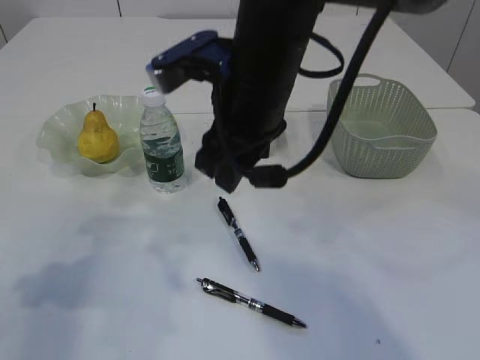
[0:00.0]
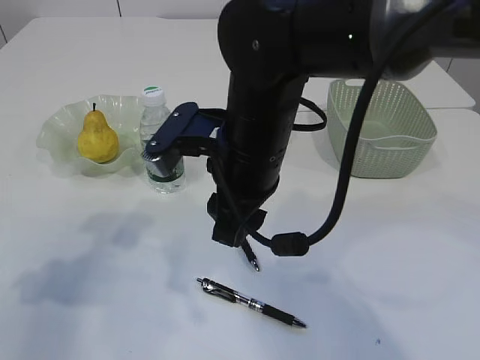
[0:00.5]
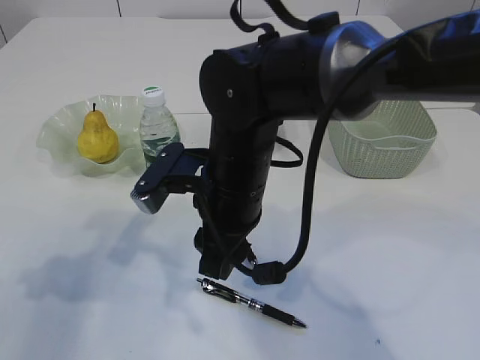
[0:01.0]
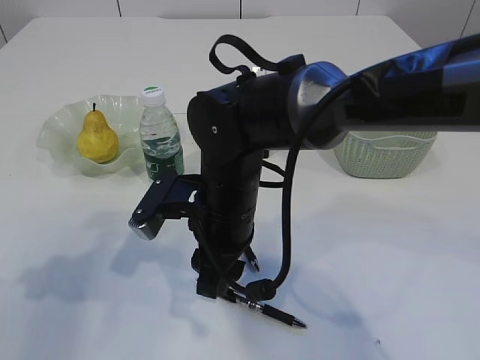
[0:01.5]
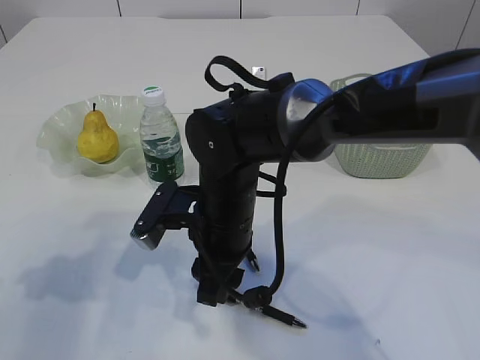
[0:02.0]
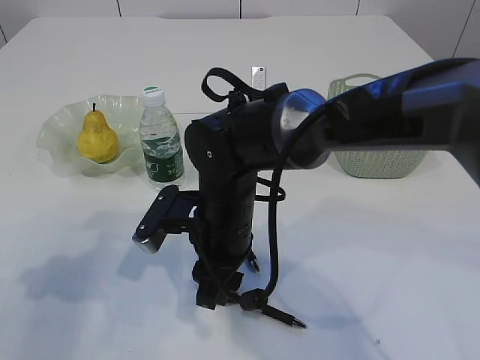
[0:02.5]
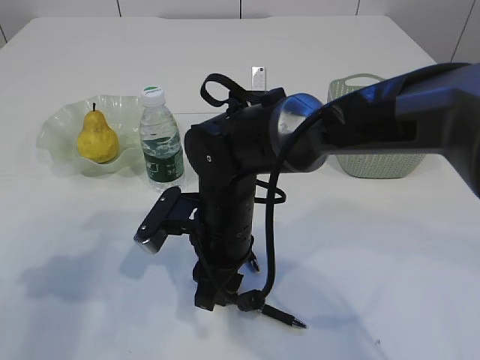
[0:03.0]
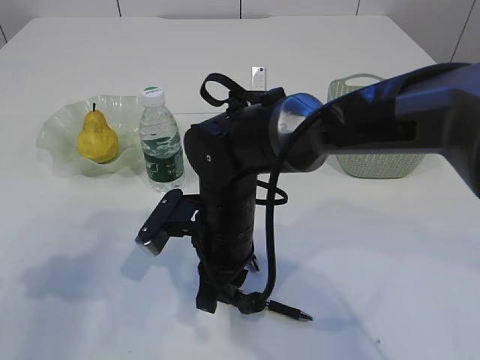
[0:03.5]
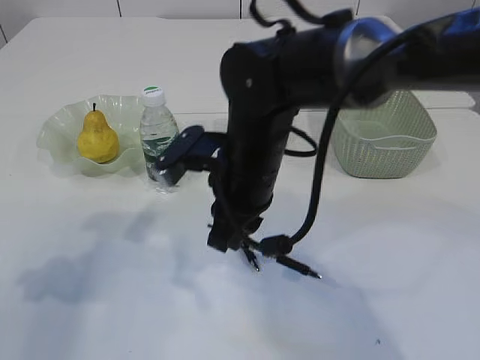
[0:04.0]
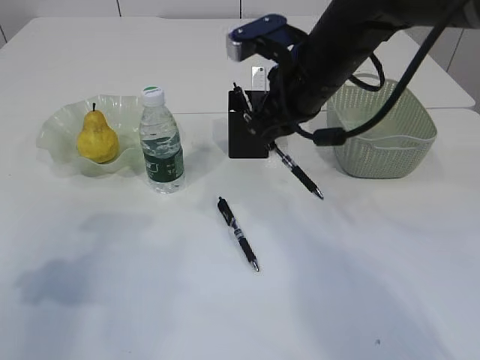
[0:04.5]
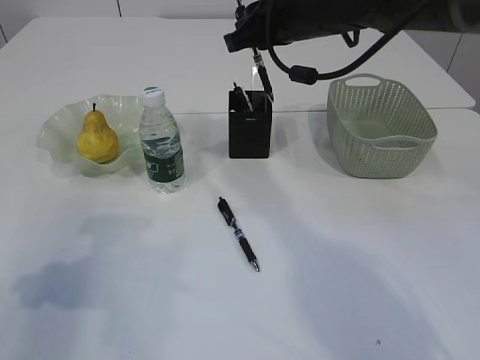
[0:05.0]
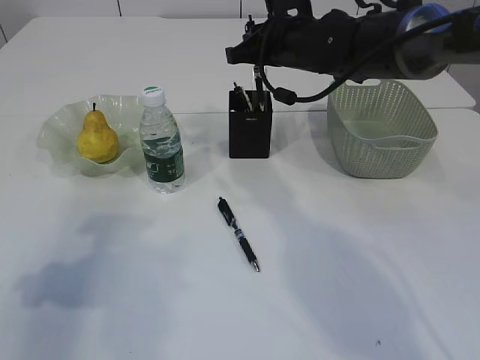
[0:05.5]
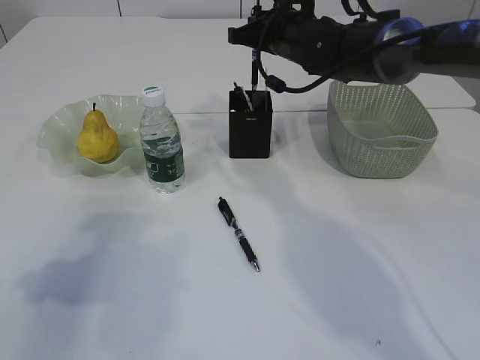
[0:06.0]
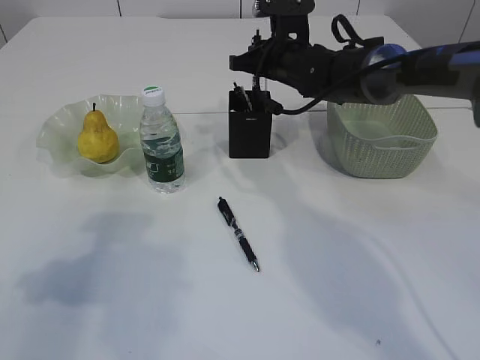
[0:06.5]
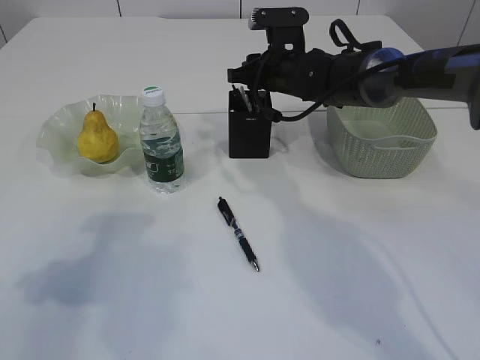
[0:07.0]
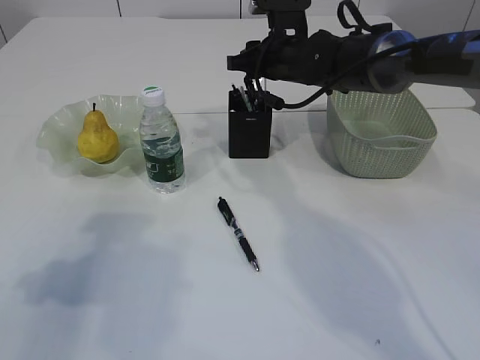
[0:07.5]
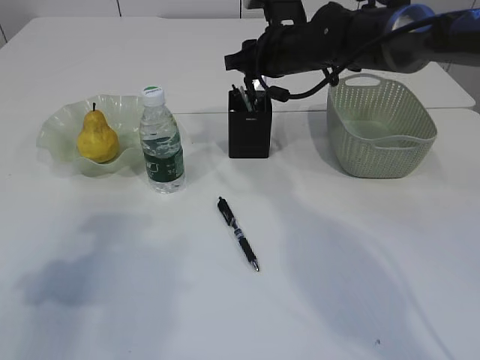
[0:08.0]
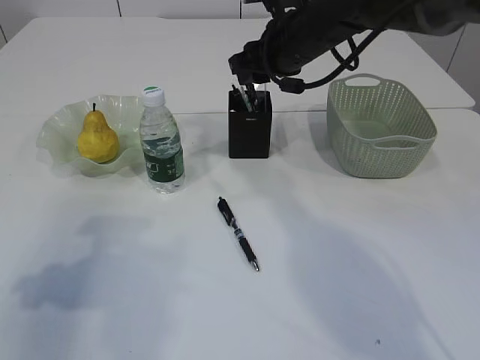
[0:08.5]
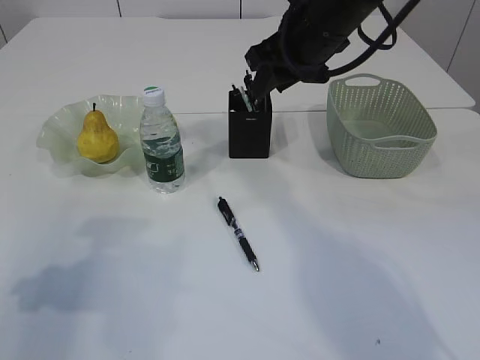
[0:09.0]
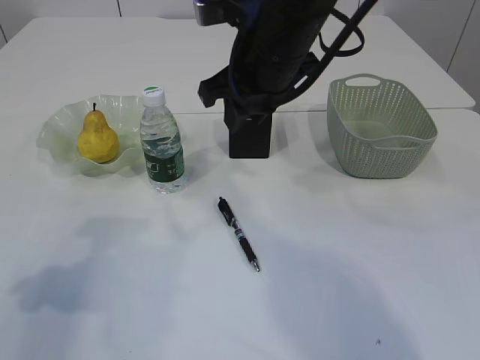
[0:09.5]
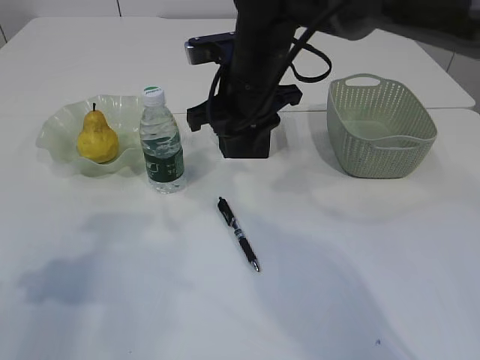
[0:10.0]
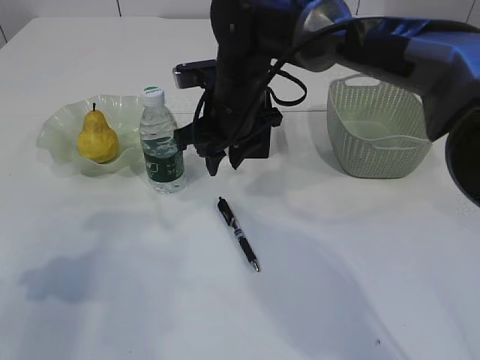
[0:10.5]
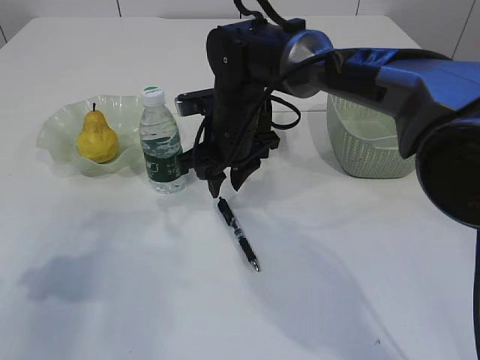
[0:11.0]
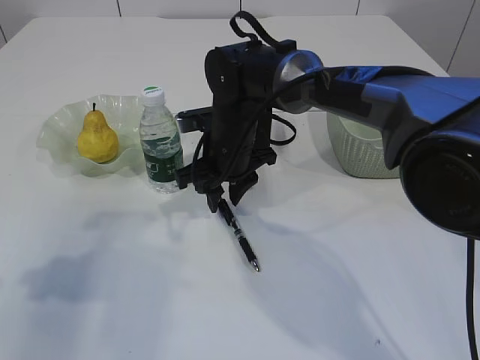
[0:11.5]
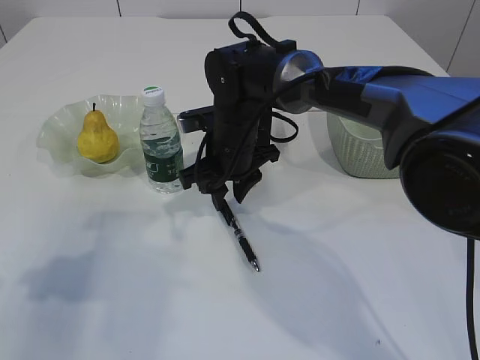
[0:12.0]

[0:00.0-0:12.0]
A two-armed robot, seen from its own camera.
Step, 0:00.0 to 0:04.0: Pick up the pen with right arm.
Step, 0:04.5 to 0:08.5: Place the pen into the pen holder.
0:00.0 to 0:02.0: The right gripper goes about 15 cm downward.
0:02.0 to 0:04.0: The right gripper shifts about 5 cm upward, and closes its fingers.
0:04.0 to 0:06.0: The right gripper goes some 20 cm forward and to the right.
0:06.0 to 0:08.0: The right gripper opens up.
0:08.0 to 0:10.0: The right gripper shifts some 10 cm backward and to the left.
0:10.0 to 0:12.0: The right gripper shifts about 10 cm downward.

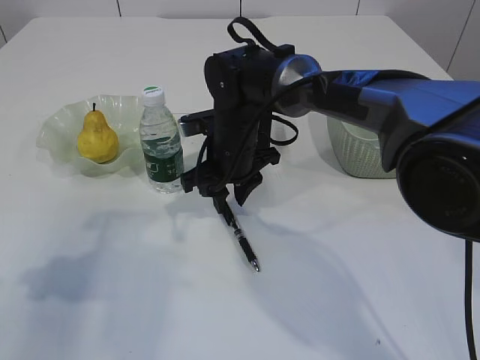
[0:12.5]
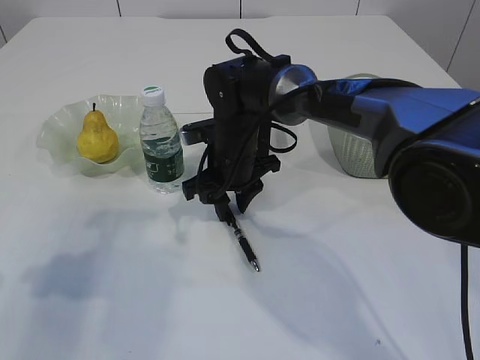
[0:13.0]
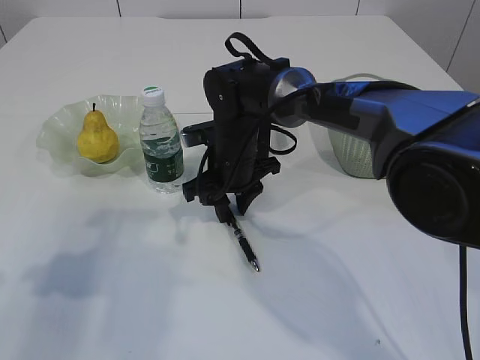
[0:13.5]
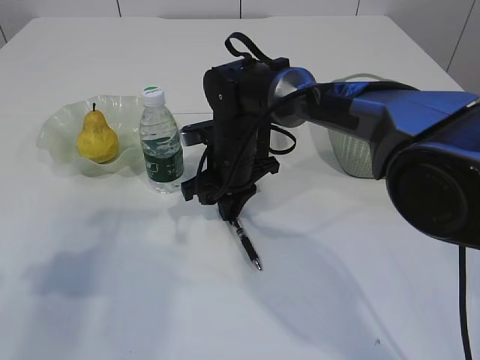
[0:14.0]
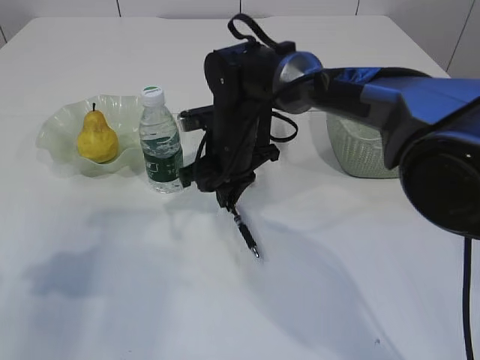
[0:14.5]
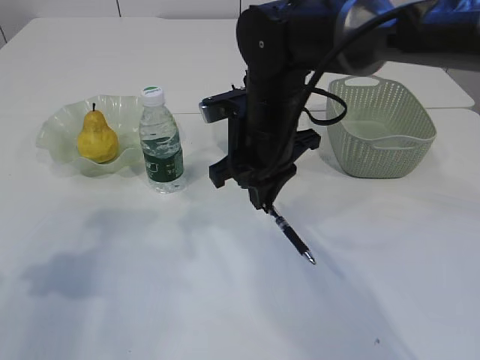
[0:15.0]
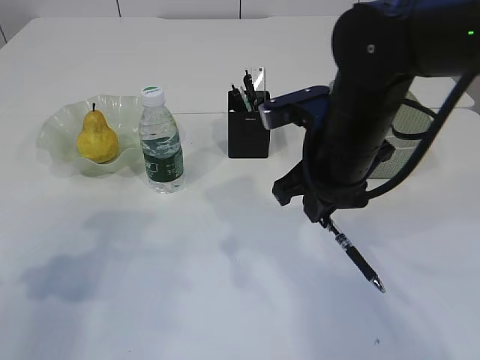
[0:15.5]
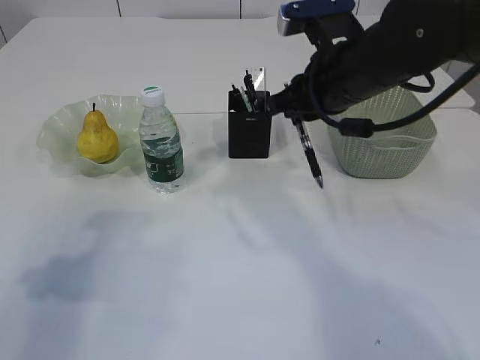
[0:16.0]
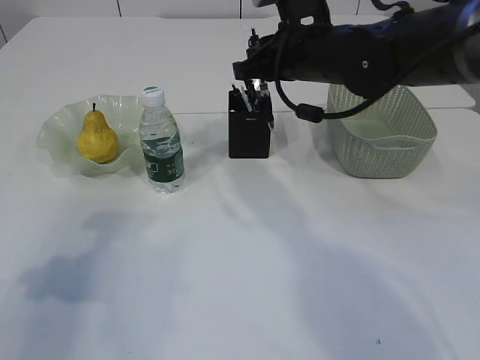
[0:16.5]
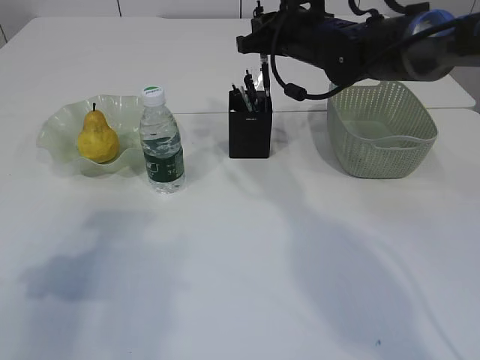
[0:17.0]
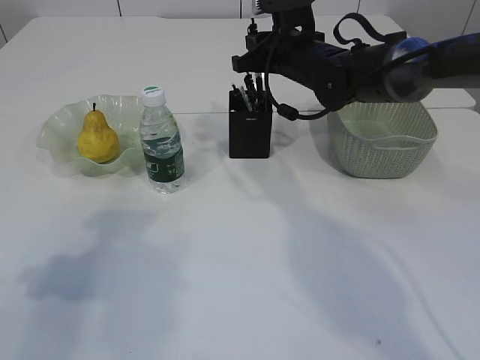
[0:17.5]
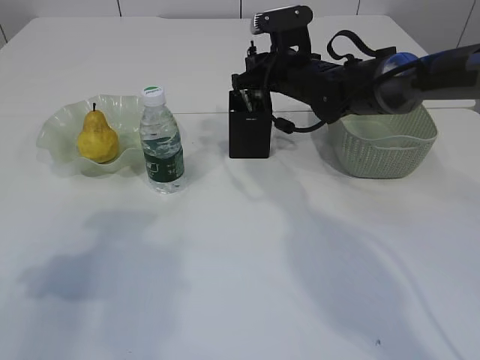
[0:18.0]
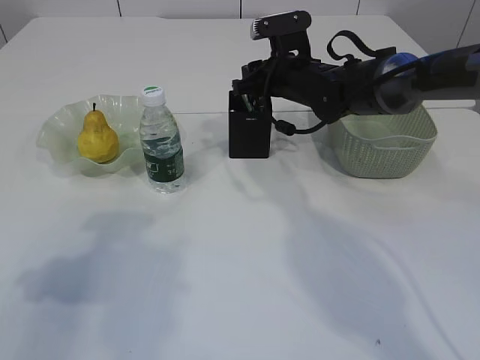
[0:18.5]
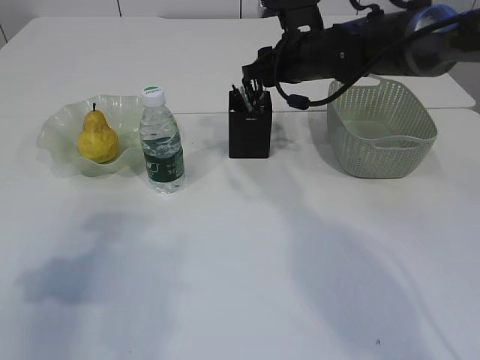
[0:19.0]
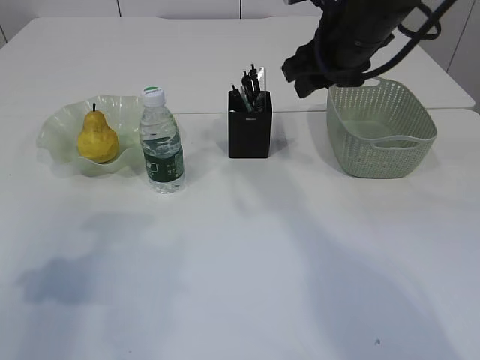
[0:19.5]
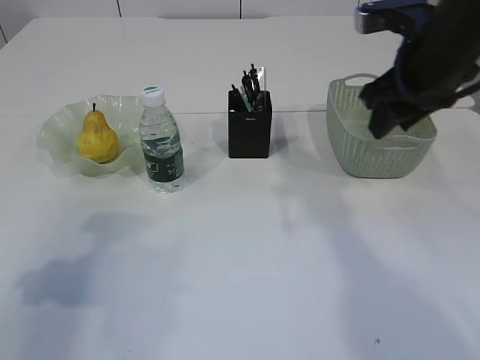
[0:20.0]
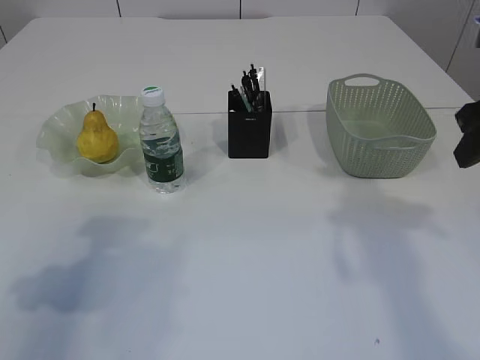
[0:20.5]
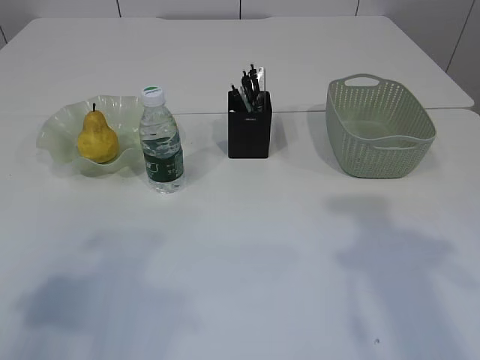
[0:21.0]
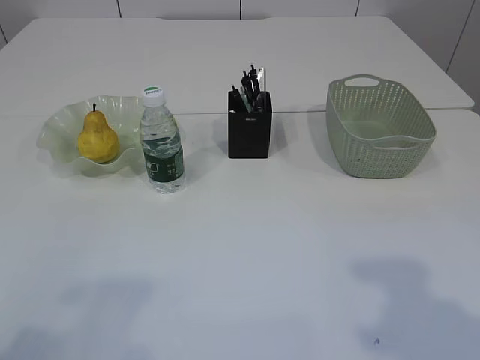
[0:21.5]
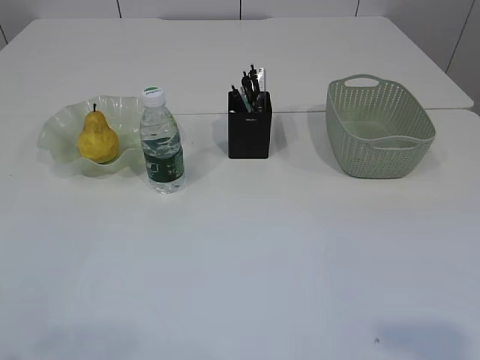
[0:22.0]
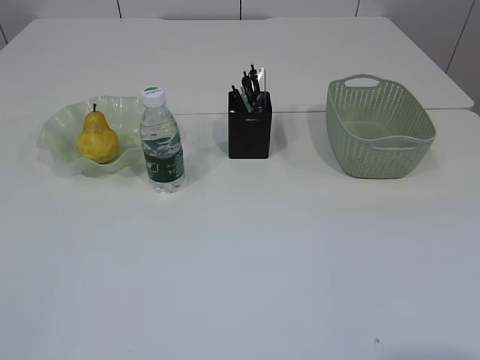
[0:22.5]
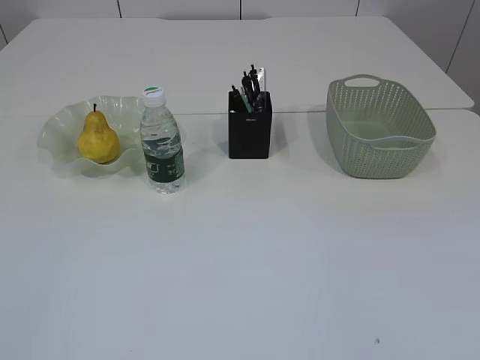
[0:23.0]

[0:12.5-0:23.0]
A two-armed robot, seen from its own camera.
Step, 0:12.5 to 0:15.5: Pick up the pen with right arm.
Step, 0:16.0 to 0:19.5: Place the pen into the pen holder.
0:12.5 to 0:14.5: The right gripper closes up.
0:14.5 to 0:16.5: The right gripper goes some 15 cm upward and to the right.
0:16.5 to 0:19.0: The right gripper heads forward, covering approximately 5 cm, and opens.
0:19.0 to 0:21.0: The left gripper travels backward and upward by about 10 cm. The right gripper is displaced backward and to the right by roughly 30 cm.
0:21.0 to 0:23.0: The left gripper travels backward by approximately 15 cm.

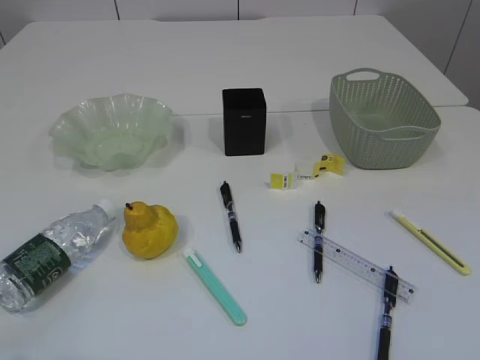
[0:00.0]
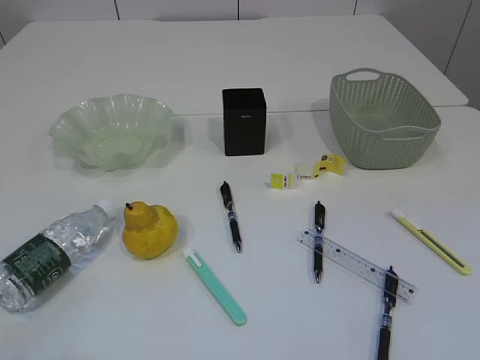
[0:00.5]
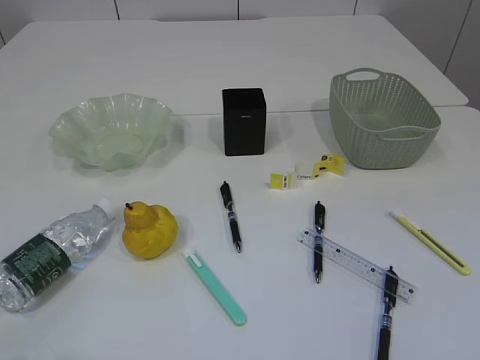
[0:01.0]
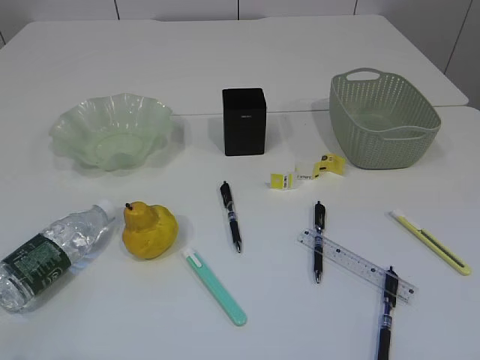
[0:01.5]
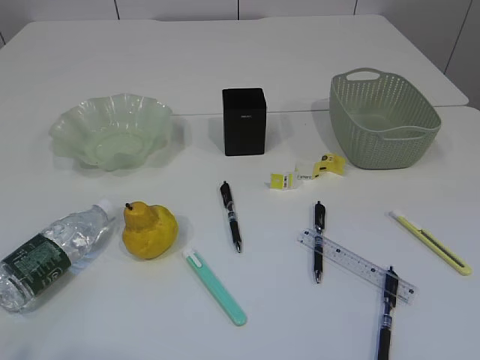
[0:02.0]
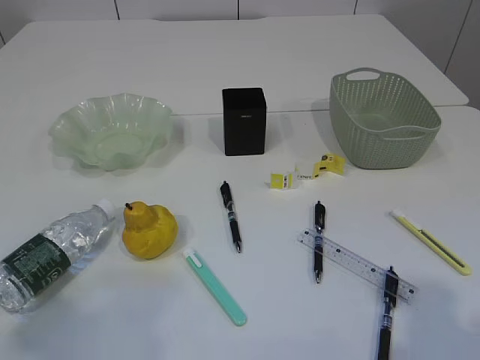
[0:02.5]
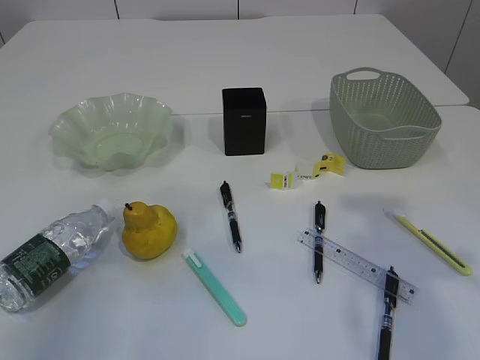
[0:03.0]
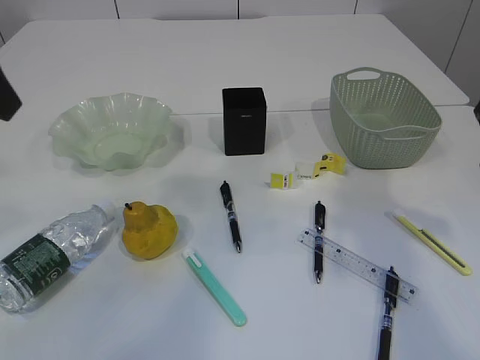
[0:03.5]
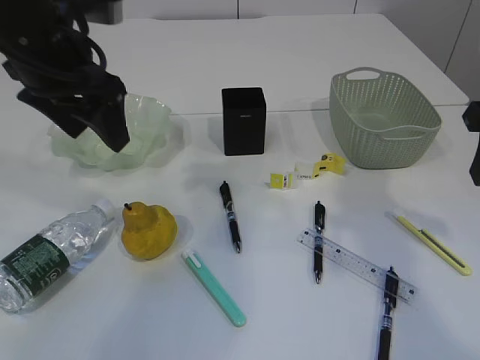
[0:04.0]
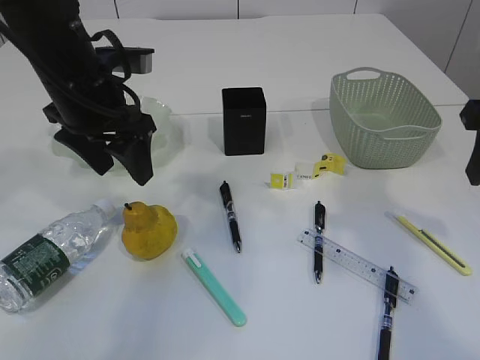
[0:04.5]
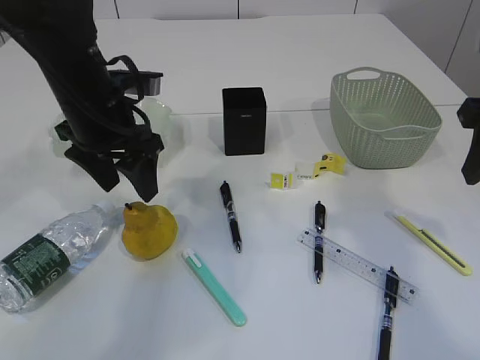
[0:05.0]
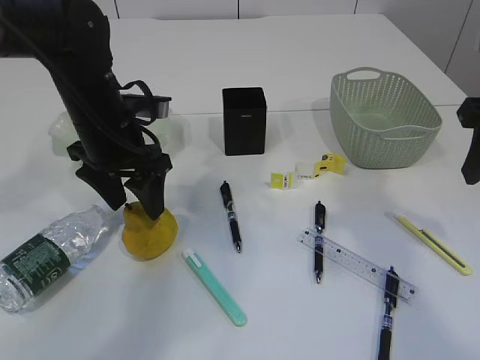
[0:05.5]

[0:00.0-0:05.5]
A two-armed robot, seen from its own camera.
0:02.0 to 0:03.5: The left gripper is displaced forward by some 25 cm.
0:03.5 to 0:05.5: The left gripper is displaced downward, forward and to the right by roughly 25 cm.
